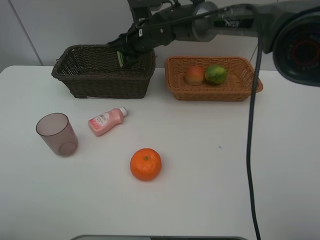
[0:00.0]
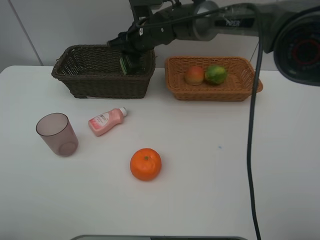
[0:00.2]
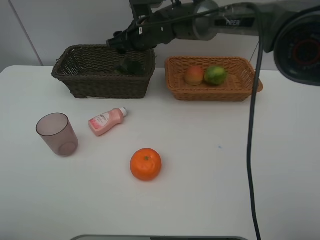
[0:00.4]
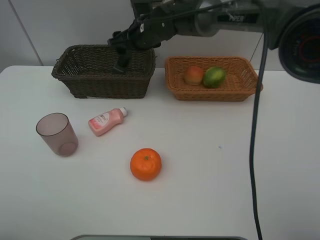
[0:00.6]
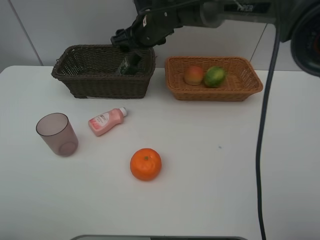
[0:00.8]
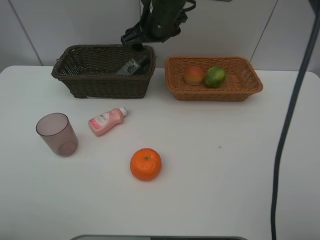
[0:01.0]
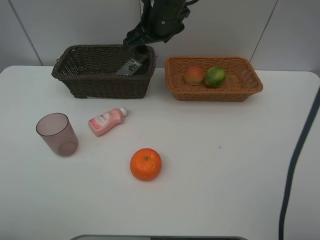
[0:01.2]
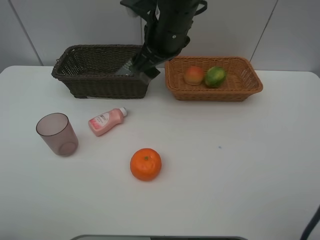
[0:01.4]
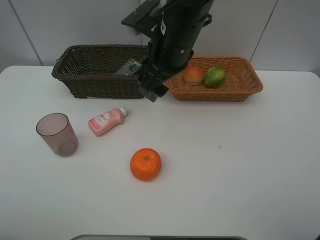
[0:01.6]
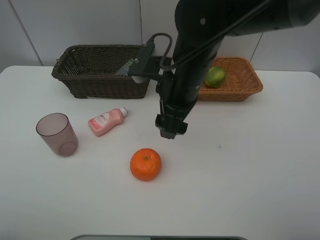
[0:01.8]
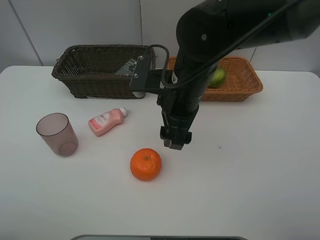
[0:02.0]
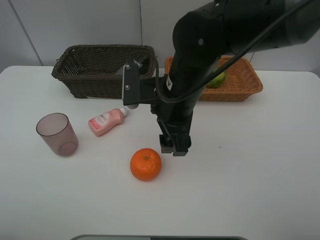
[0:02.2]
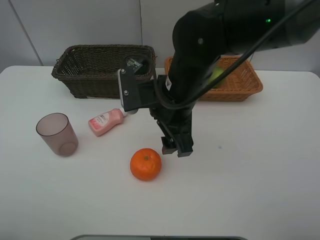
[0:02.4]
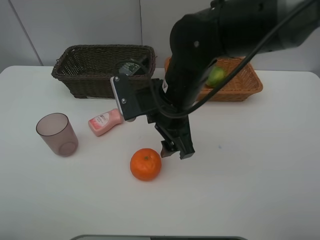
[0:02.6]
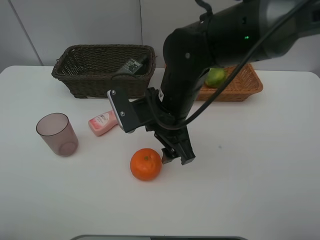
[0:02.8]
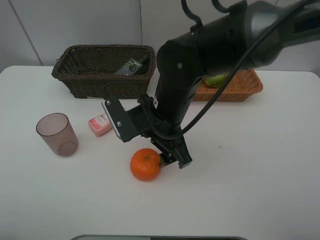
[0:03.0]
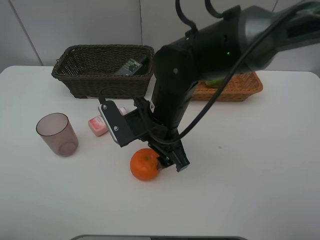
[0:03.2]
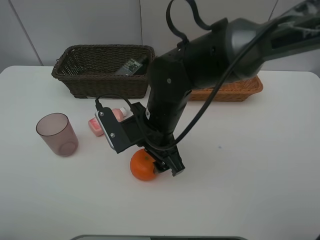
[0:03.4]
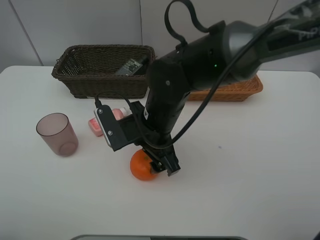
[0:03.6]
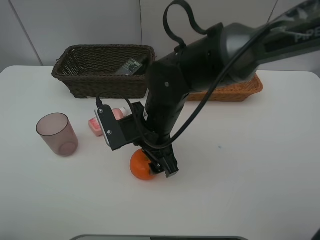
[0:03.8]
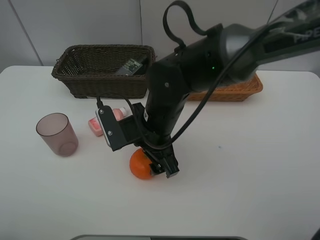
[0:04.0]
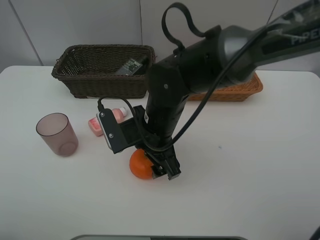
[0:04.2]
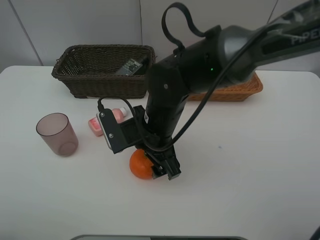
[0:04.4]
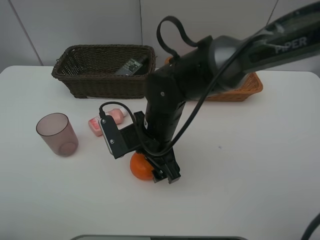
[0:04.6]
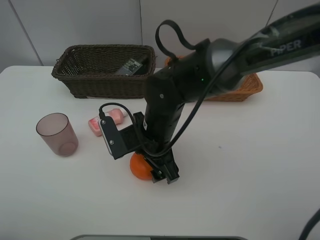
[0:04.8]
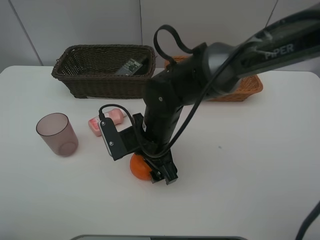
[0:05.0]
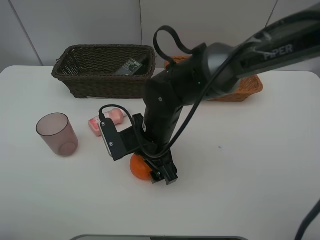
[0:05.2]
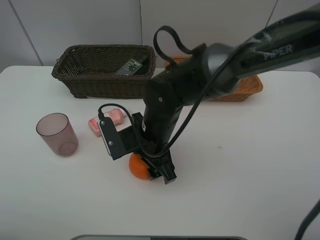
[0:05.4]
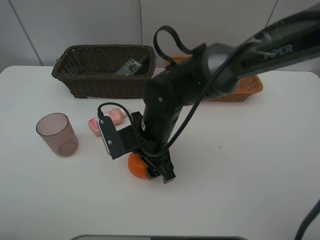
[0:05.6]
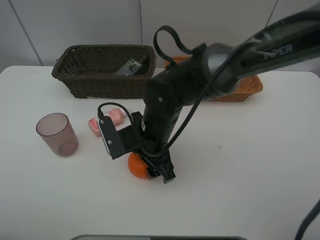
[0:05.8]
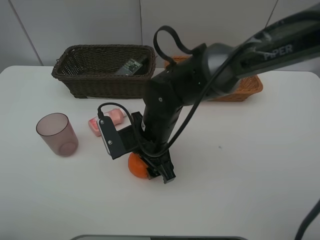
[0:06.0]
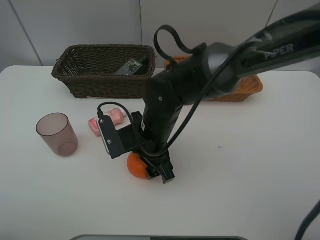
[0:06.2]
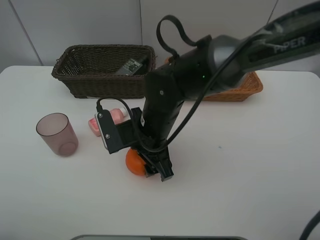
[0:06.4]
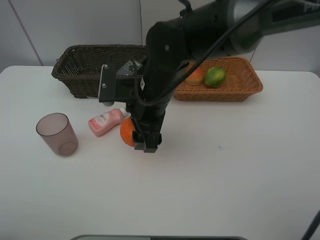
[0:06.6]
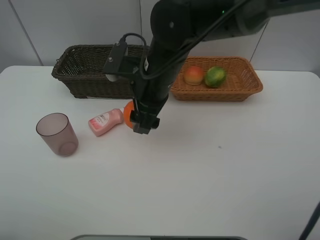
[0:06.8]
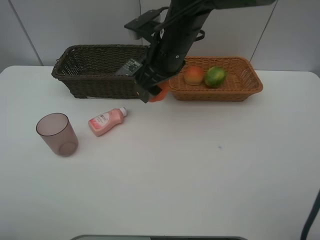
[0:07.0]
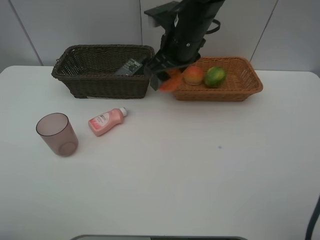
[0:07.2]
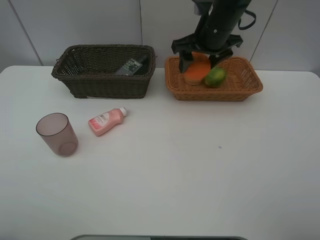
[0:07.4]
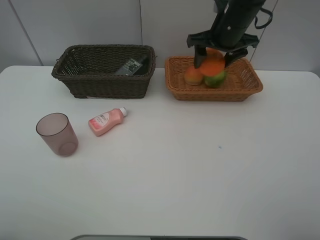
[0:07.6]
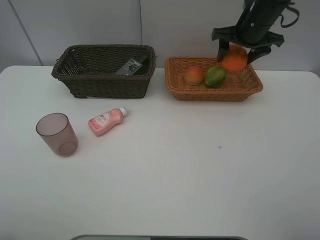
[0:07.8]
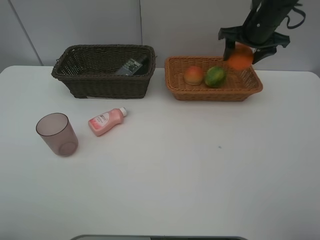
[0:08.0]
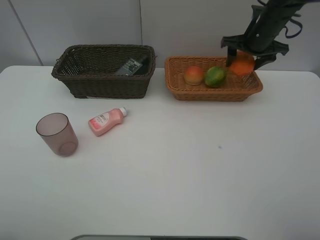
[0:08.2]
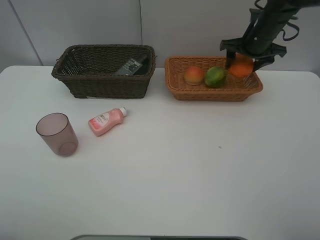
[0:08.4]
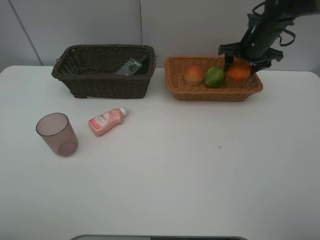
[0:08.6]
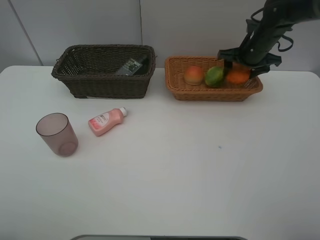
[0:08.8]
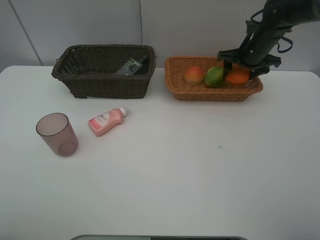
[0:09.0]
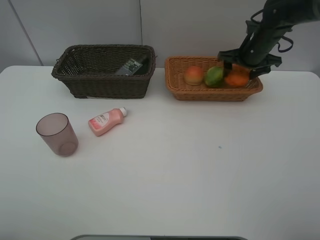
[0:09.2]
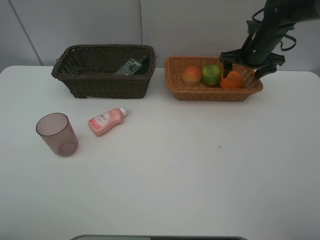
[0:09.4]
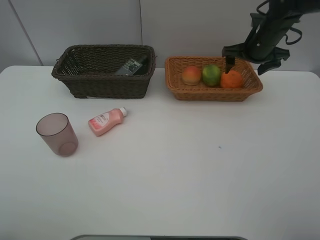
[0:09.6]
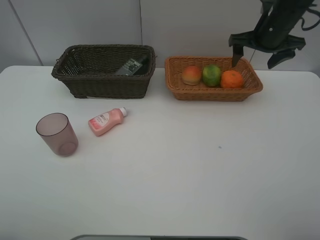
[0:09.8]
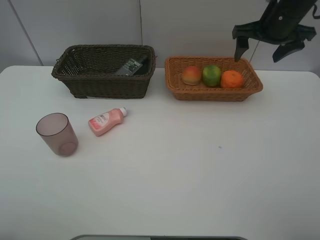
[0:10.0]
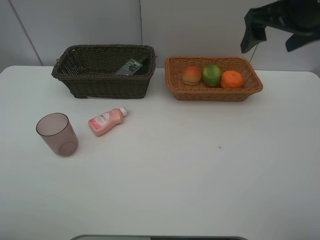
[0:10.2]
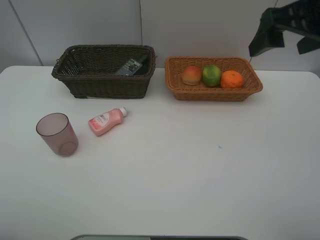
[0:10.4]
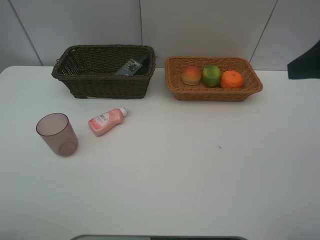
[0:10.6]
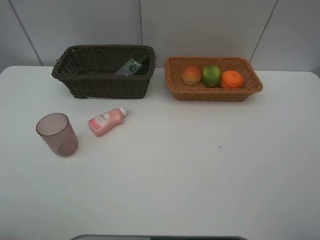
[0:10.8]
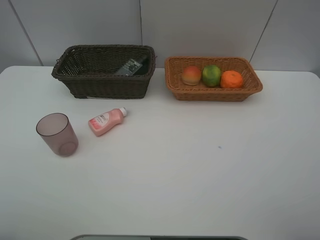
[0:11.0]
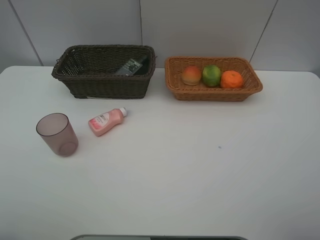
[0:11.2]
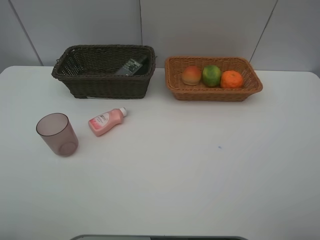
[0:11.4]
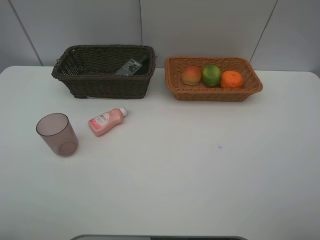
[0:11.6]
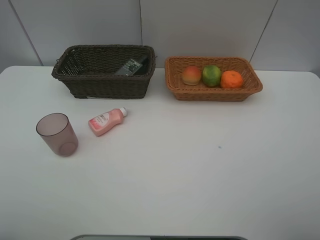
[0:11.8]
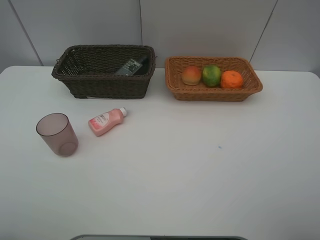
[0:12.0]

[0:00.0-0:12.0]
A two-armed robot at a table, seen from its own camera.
Task of the whole recording: place multiple objects separately in different baskets.
0:00.0 to 0:01.6: The right gripper travels backward by some 15 cm, and opens.
0:01.6 to 0:03.0: The right gripper travels downward and backward by about 10 cm.
0:03.0 to 0:06.0: There are only small adjustments of the grippers.
0:06.0 to 0:07.6: The right gripper heads forward, to the right and upward, covering roughly 30 cm.
0:07.6 to 0:09.0: The right gripper moves to the right and downward, roughly 10 cm.
0:09.0 to 0:10.4: The right gripper is displaced backward and upward by about 30 cm.
0:10.4 to 0:12.0: The right gripper travels backward by some 20 cm.

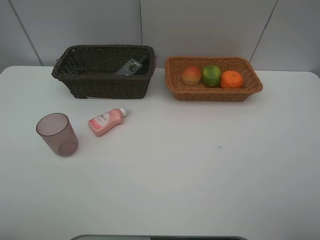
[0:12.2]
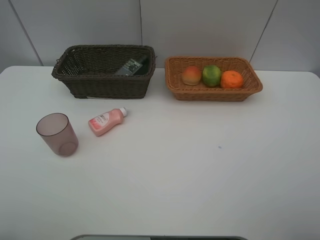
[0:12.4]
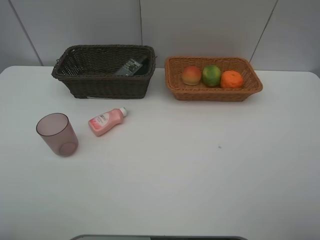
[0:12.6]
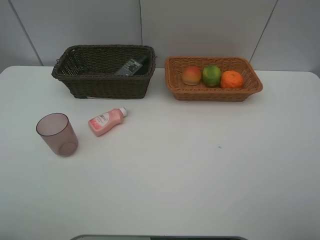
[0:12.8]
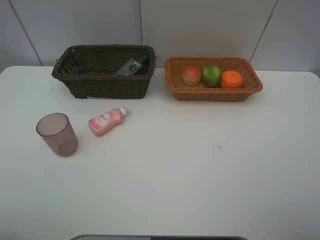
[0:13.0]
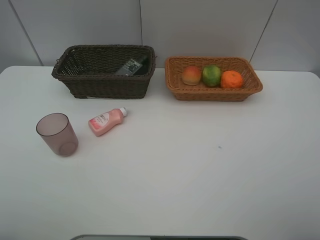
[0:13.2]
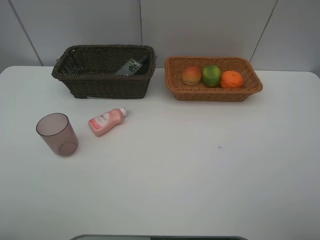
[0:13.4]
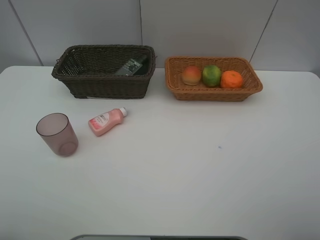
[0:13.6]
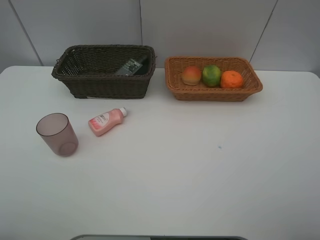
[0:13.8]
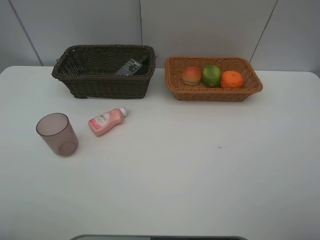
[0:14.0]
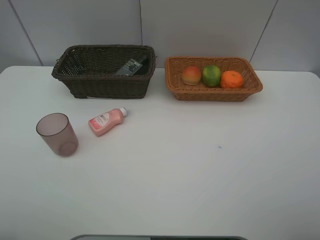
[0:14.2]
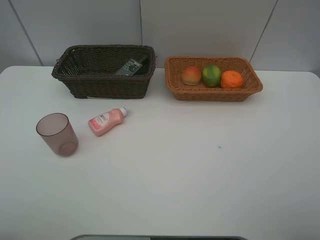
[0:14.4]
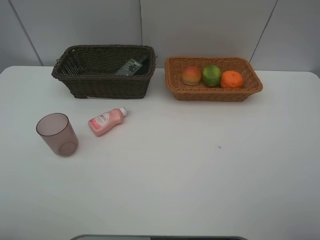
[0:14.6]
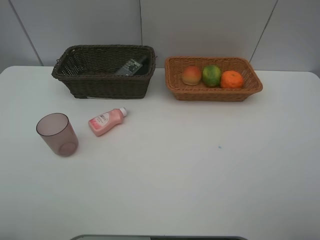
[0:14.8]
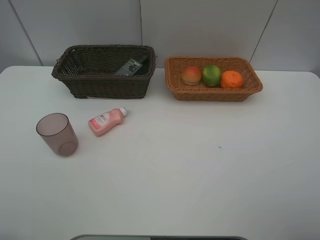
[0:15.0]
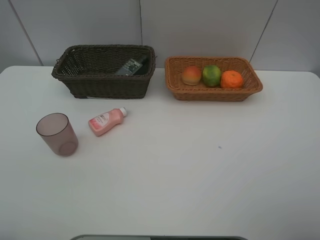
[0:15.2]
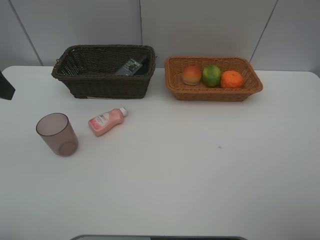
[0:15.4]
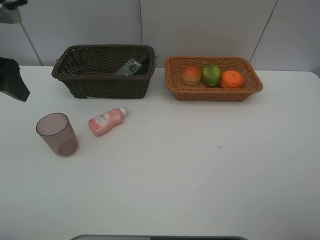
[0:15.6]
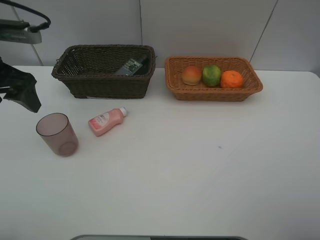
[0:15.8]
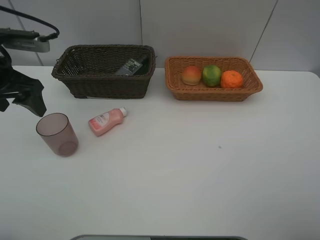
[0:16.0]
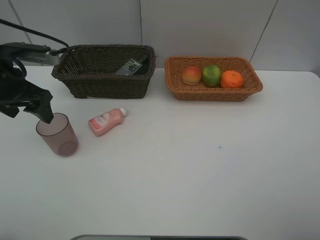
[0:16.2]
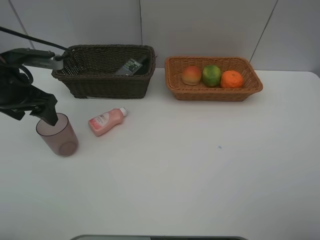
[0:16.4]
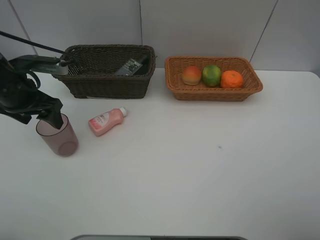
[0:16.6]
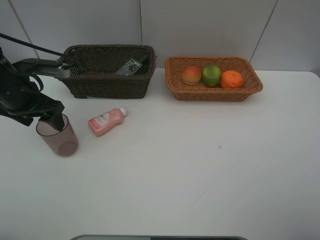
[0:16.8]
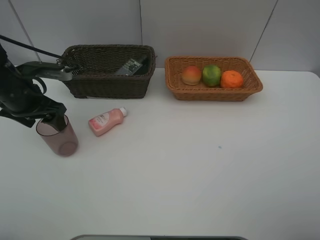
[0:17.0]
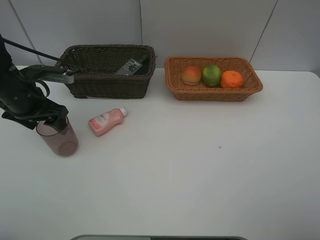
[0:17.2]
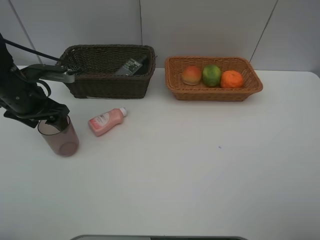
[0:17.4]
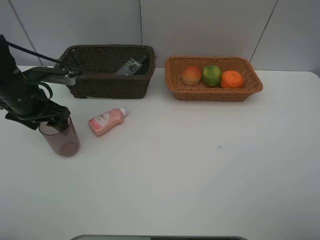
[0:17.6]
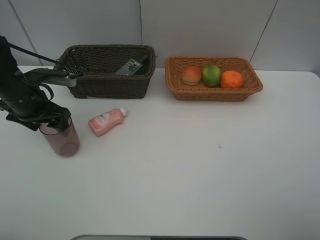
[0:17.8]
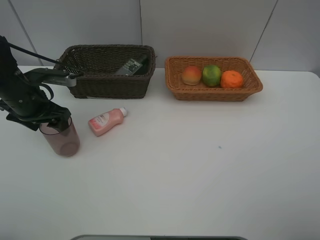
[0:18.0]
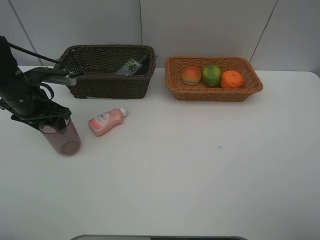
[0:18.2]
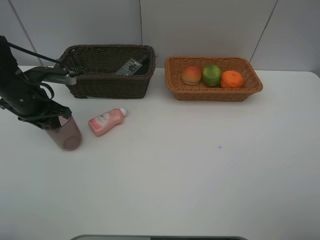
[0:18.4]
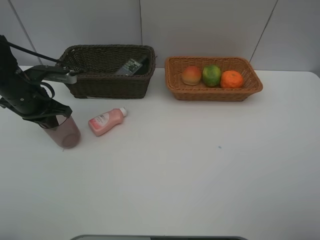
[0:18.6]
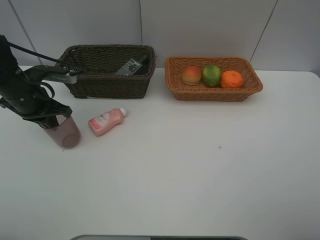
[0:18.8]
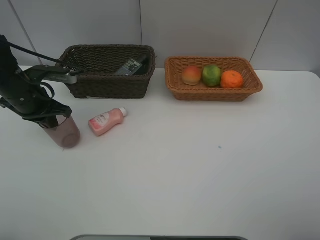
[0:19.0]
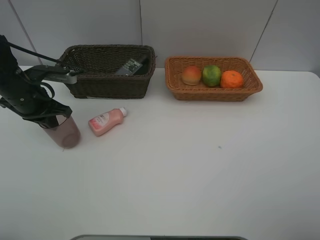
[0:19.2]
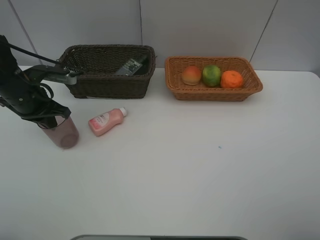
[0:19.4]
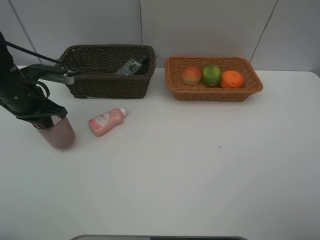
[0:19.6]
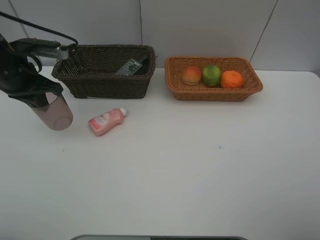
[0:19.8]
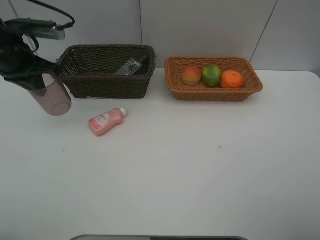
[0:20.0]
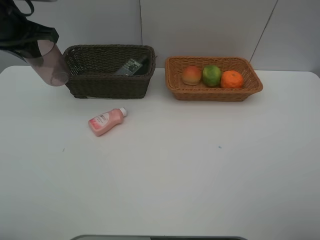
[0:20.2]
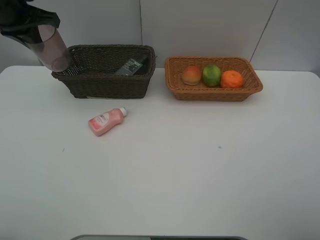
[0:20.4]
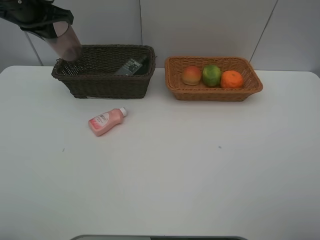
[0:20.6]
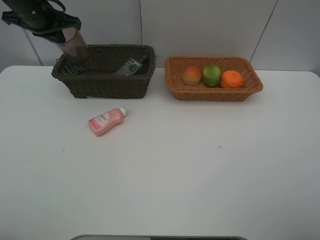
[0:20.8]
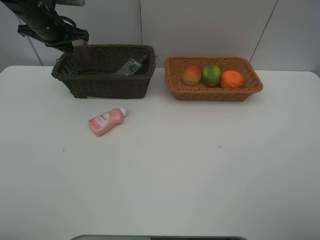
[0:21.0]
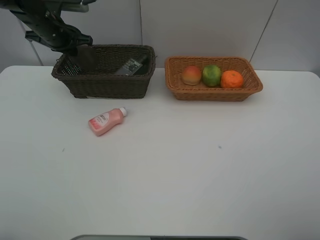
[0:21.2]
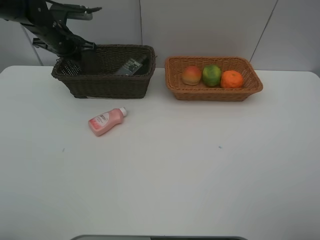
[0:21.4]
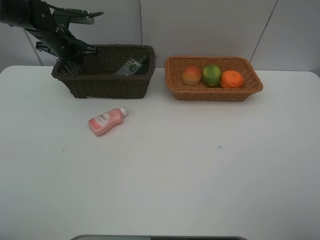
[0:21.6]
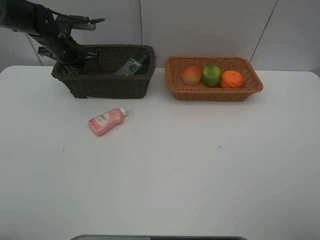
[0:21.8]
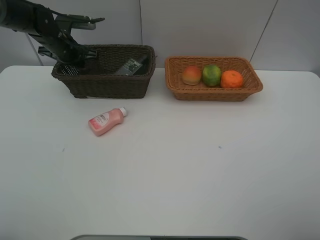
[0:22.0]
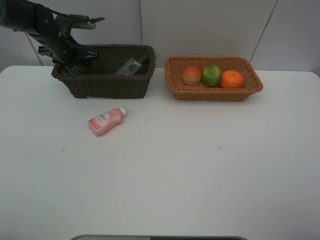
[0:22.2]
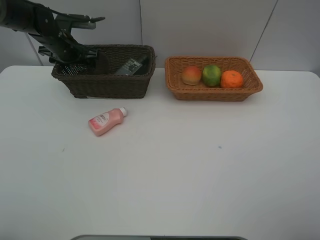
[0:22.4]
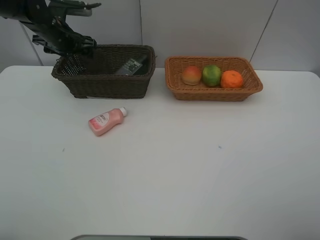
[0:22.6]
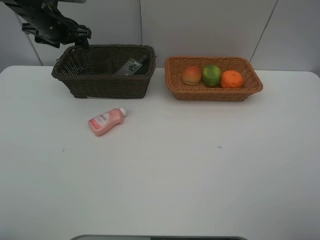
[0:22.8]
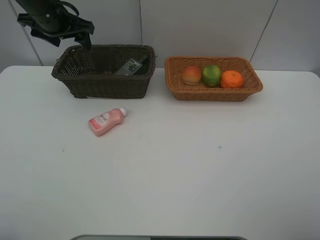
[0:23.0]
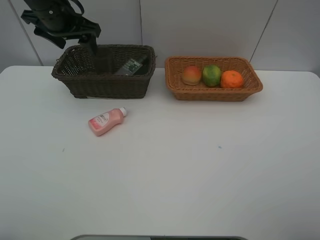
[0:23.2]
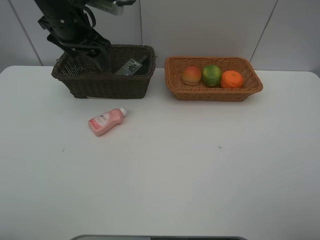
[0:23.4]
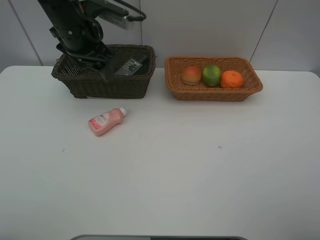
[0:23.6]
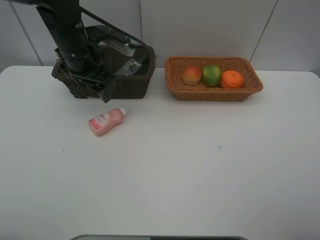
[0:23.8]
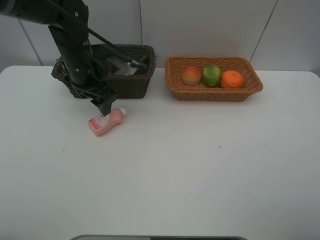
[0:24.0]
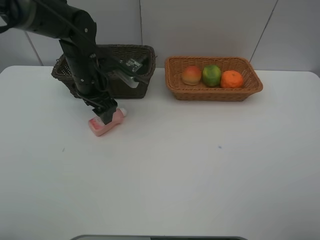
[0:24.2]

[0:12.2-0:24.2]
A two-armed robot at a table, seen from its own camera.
Task of the whole recording: place multiple objects separately in different baskets.
0:15.2 to 0:16.6: The left gripper is displaced downward and forward by some 20 cm.
0:16.6 to 0:18.2: The left gripper closes.
0:18.2 to 0:19.8: The left gripper travels upward by roughly 5 cm, and closes its fingers.
0:19.8 to 0:21.2: The left gripper heads forward, covering approximately 15 cm.
0:21.2 to 0:22.6: The left gripper opens its fingers.
0:22.6 to 0:24.2: The left gripper heads to the right, backward and downward, covering approximately 15 cm.
